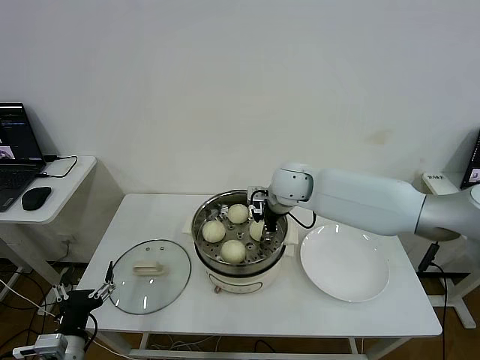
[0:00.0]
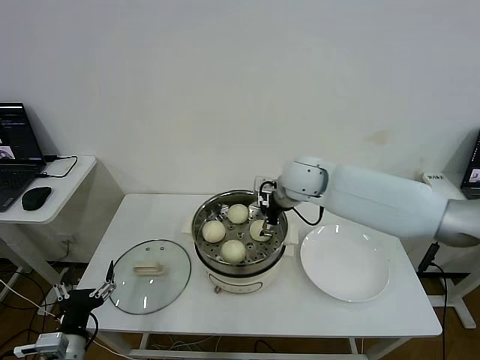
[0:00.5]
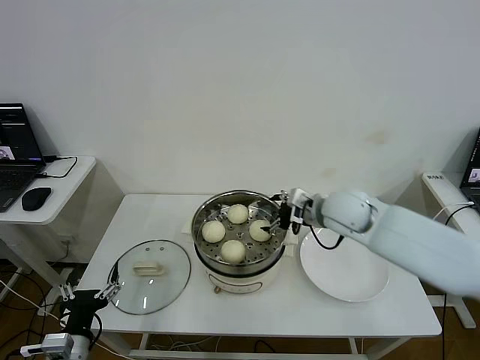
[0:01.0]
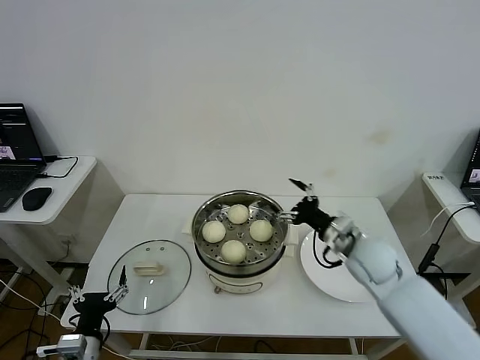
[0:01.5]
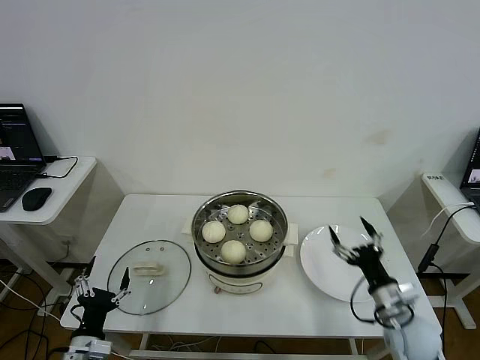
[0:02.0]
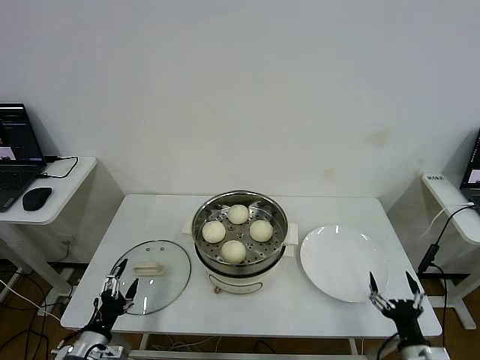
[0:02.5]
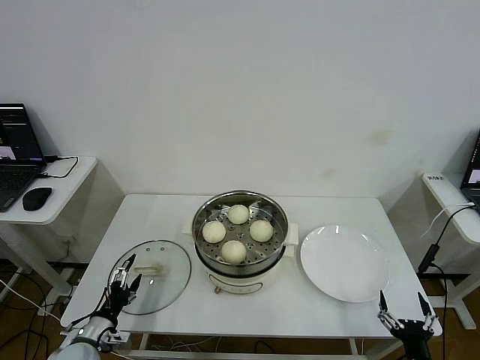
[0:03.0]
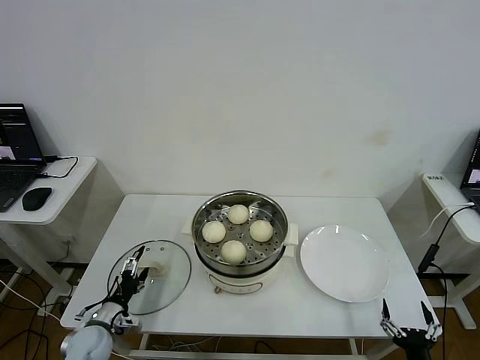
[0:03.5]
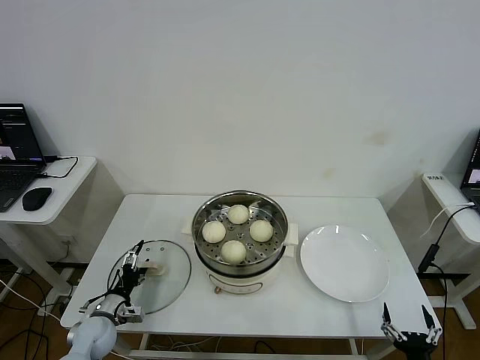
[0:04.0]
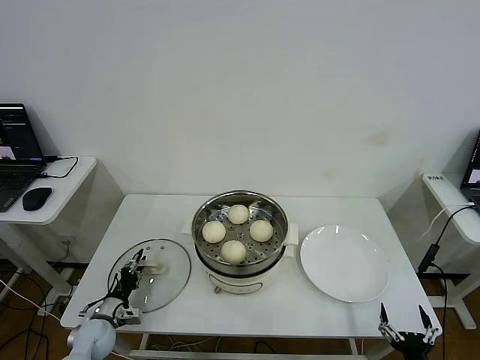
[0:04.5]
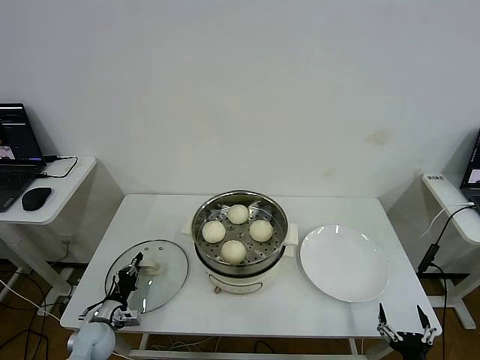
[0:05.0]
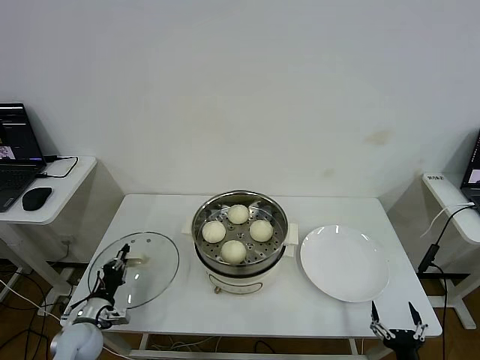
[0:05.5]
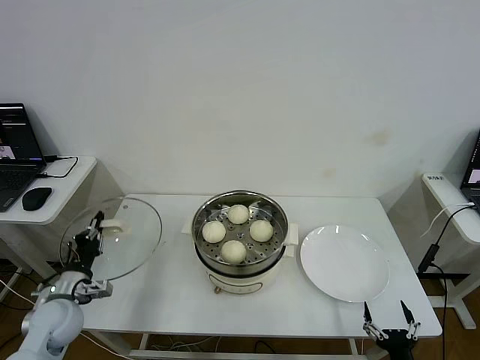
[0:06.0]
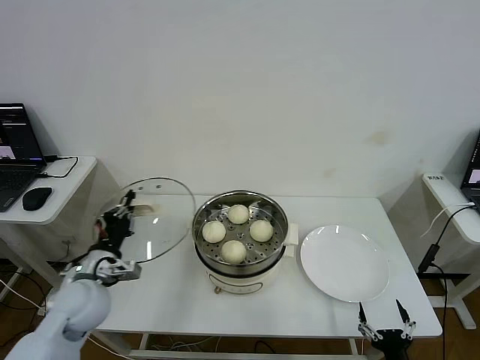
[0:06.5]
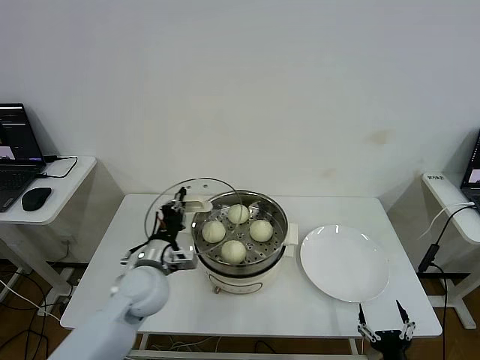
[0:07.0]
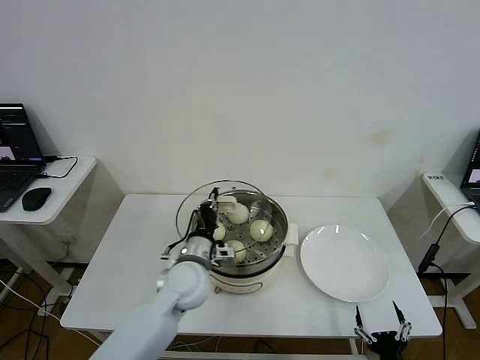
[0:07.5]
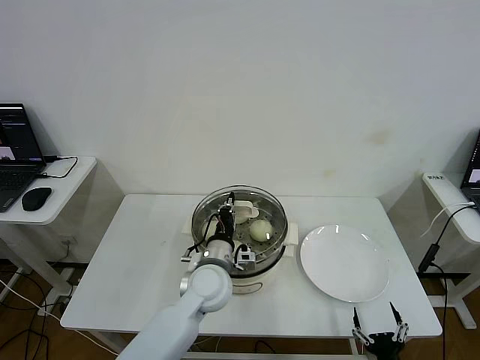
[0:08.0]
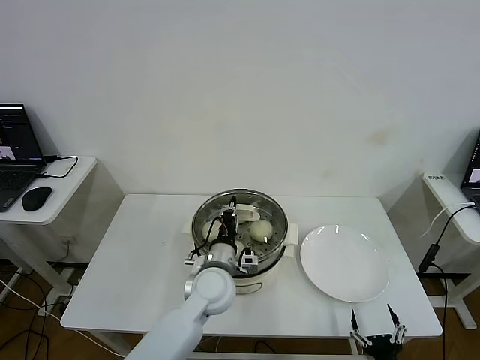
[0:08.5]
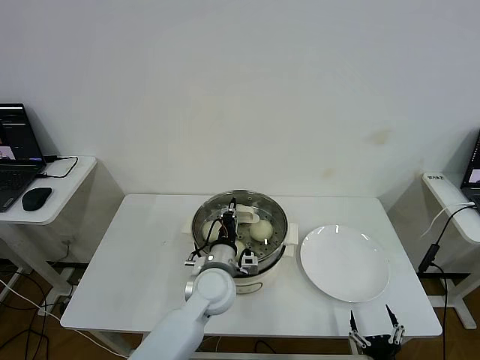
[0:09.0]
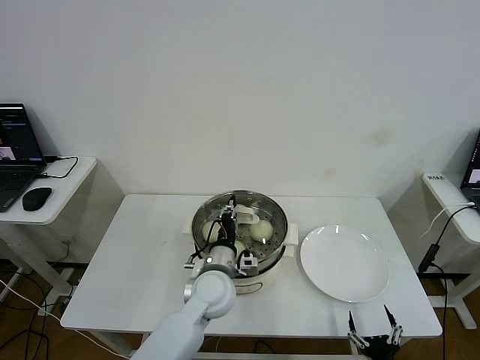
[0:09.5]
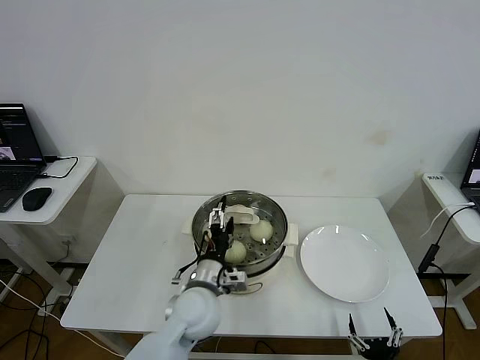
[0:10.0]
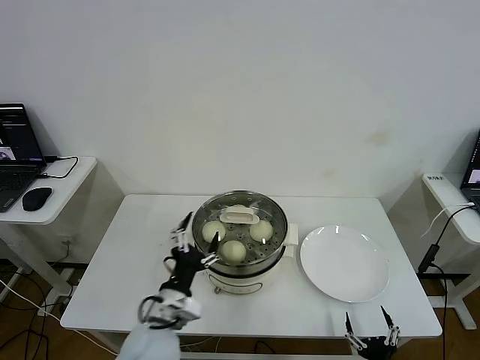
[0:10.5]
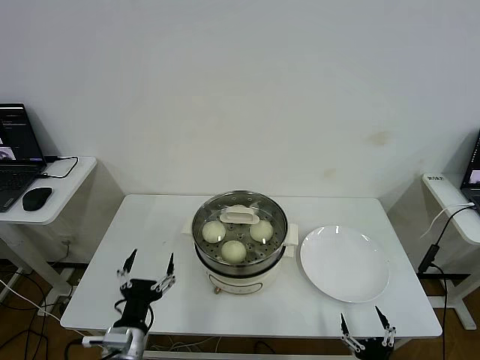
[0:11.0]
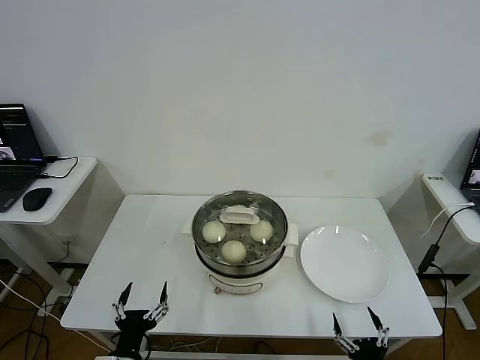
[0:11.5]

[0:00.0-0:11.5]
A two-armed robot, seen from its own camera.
Step, 0:00.5 to 0:04.5: Grasp the pot lid with left gripper.
Step, 0:05.0 to 0:09.5: Place the pot lid on the steamer with left gripper.
0:00.0 to 0:02.0: The right gripper moves backward, to the right and downward, approximately 40 cm, and opens up.
0:02.0 to 0:04.0: The left gripper shifts about 15 cm forward and downward. Meanwhile the right gripper goes approximately 20 cm backward and downward.
0:04.0 to 0:06.0: The left gripper is displaced upward by approximately 10 cm, and closes.
0:06.0 to 0:07.5: The left gripper travels to the right by approximately 25 cm.
0:07.5 to 0:09.5: The left gripper shifts roughly 5 cm to the right.
0:09.5 to 0:11.5: The left gripper travels backward and to the left by some 30 cm, and opens up.

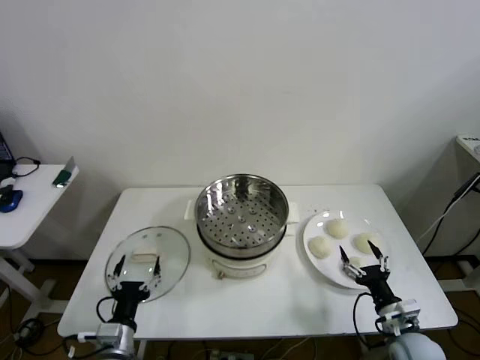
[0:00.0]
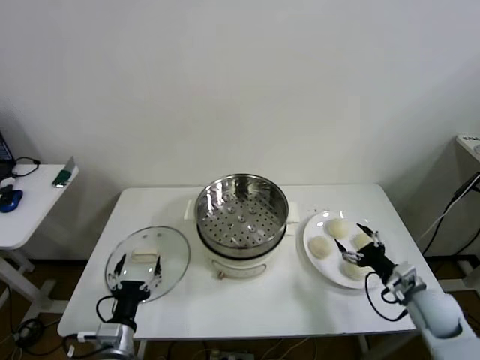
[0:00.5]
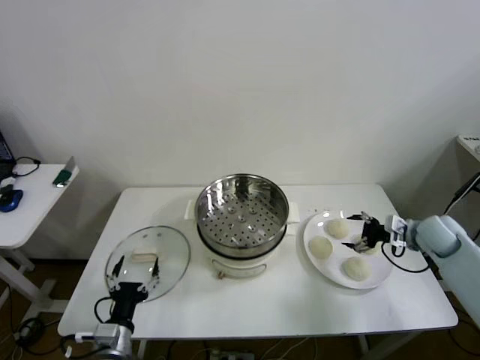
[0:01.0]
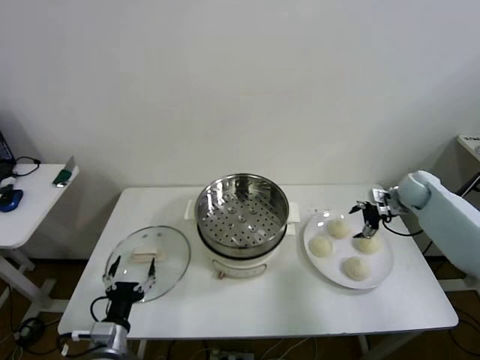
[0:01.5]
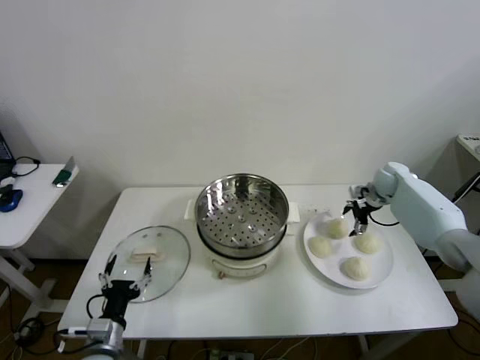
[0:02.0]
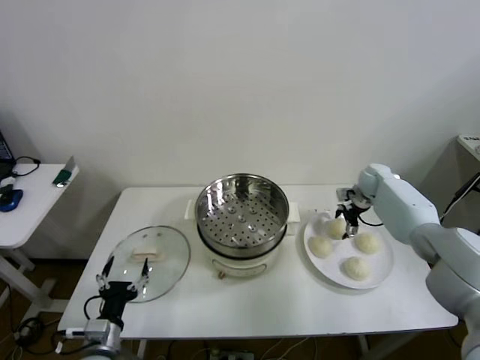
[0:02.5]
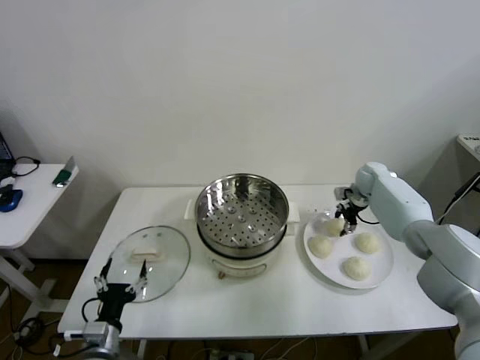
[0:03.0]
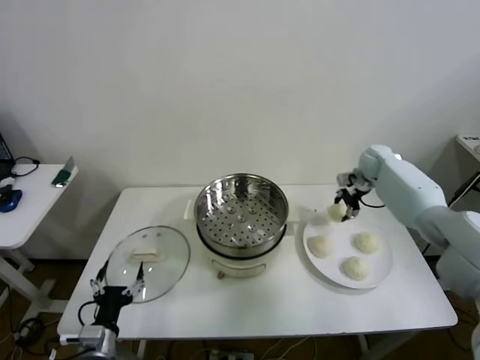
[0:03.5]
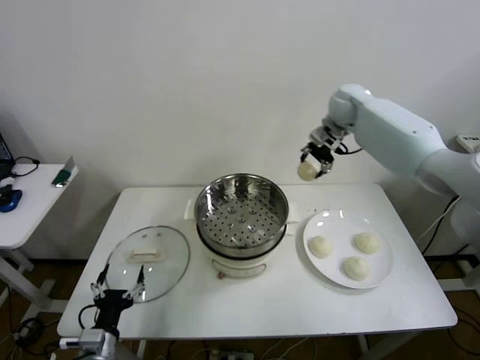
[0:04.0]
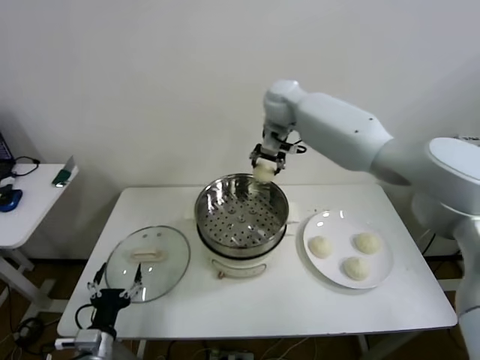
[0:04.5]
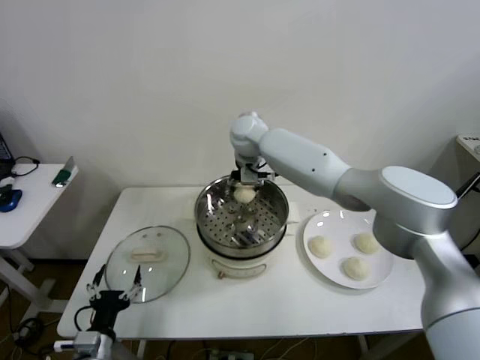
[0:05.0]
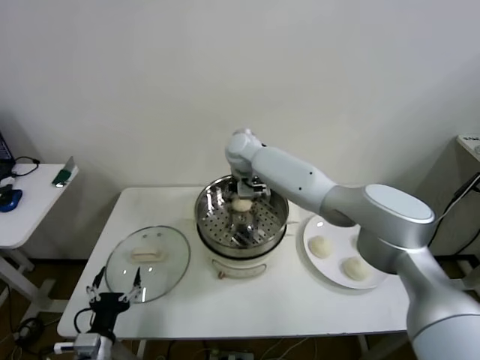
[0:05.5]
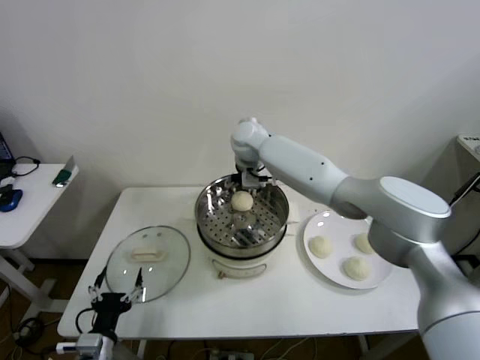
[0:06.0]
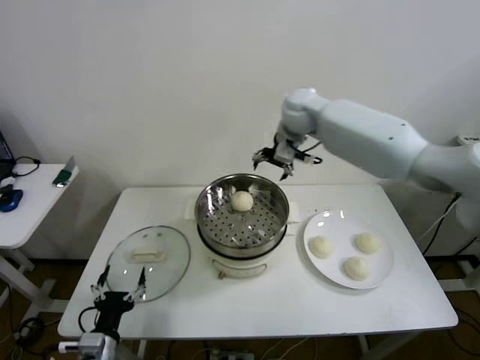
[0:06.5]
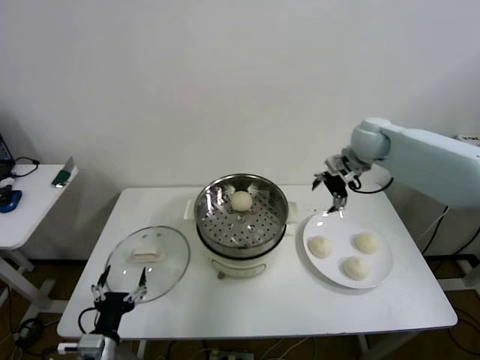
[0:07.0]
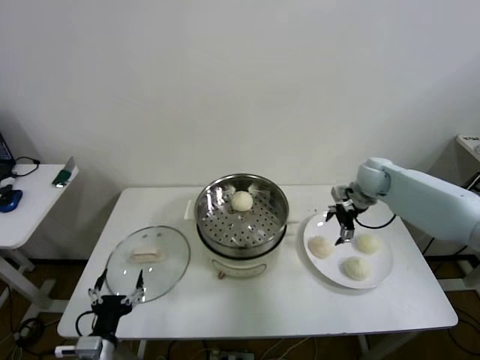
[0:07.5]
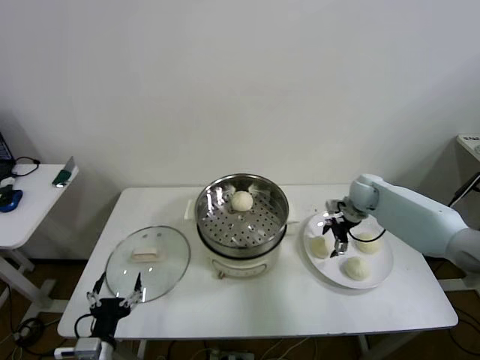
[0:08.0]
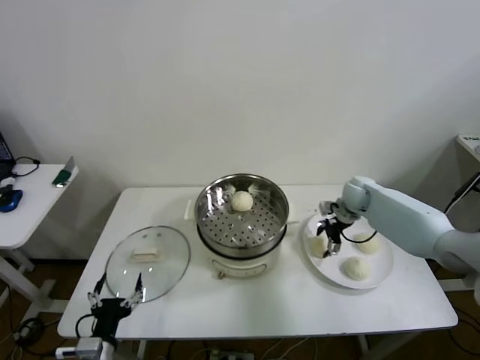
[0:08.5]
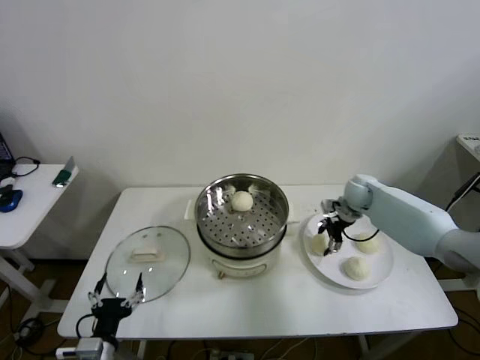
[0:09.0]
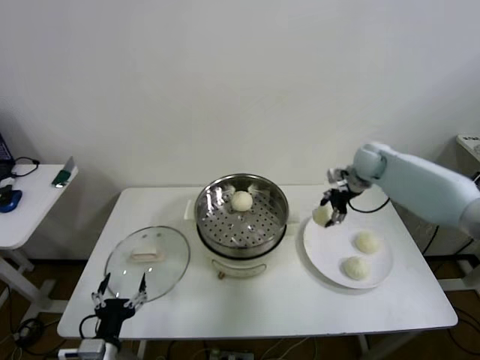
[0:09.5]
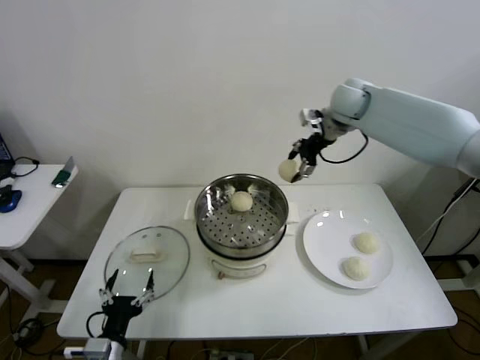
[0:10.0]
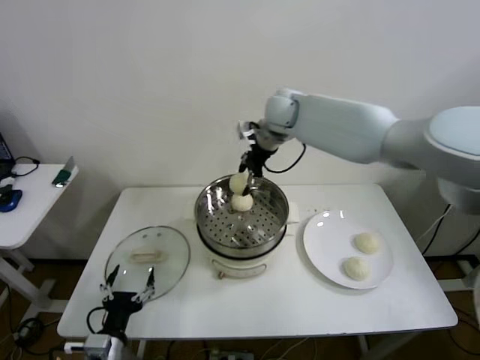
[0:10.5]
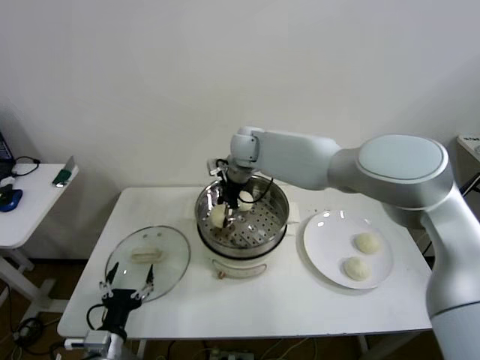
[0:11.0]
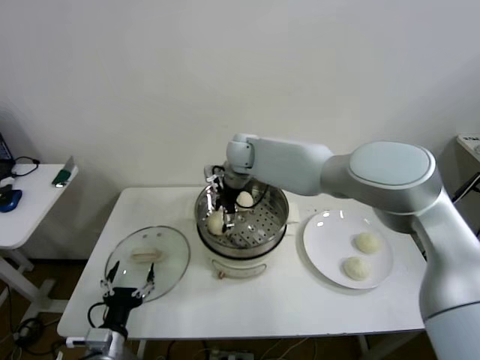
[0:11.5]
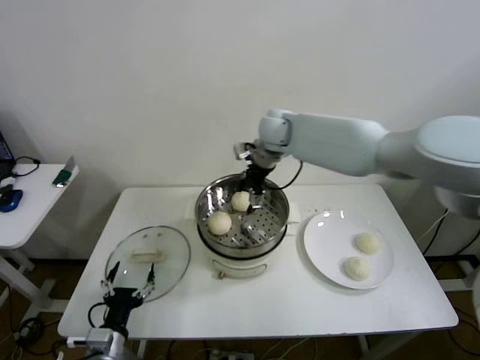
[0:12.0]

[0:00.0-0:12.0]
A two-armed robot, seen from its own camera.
Step, 0:00.0 to 0:03.0: Grasp the baozi in the plate with right gripper.
Step, 0:03.5 to 0:06.0: Place the baozi on the steamer with right gripper.
Step, 0:06.5 to 0:08.0: Grasp the baozi in the plate with right gripper.
Step, 0:09.0 to 0:11.5: Place the baozi on the steamer with right gripper.
0:02.0 to 0:04.0: The right gripper travels upward and to the left by roughly 25 cm, and closes its fingers.
0:04.0 to 0:06.0: The right gripper moves to the left, about 25 cm, and opens.
0:06.0 to 0:08.0: The right gripper goes some 35 cm to the right and downward.
0:08.0 to 0:10.0: The right gripper goes about 25 cm upward, and closes.
0:10.0 to 0:12.0: The right gripper heads to the left, covering some 15 cm, and opens up.

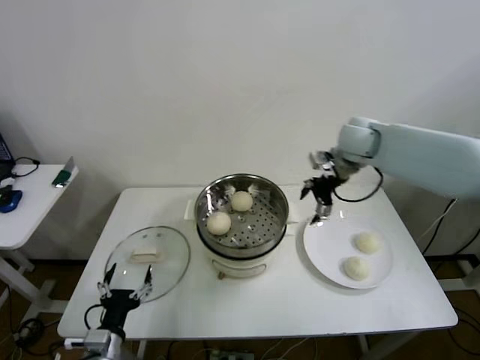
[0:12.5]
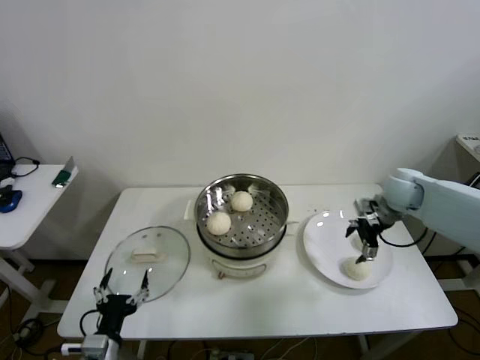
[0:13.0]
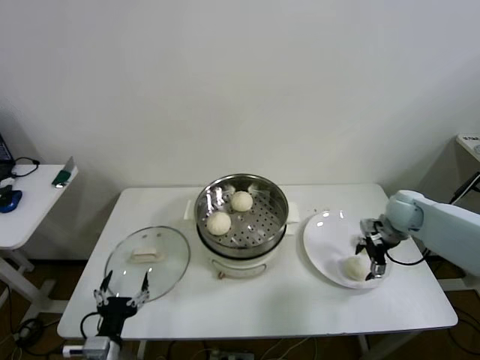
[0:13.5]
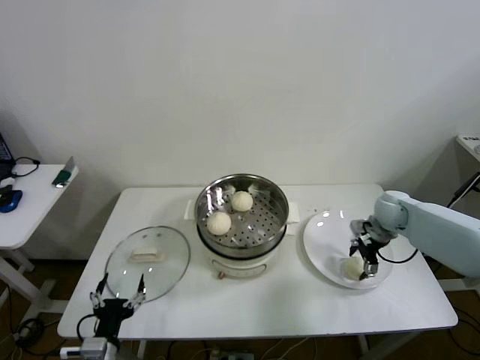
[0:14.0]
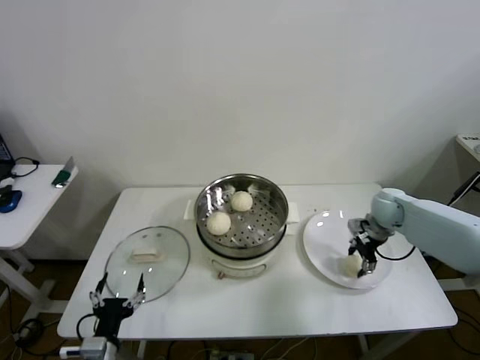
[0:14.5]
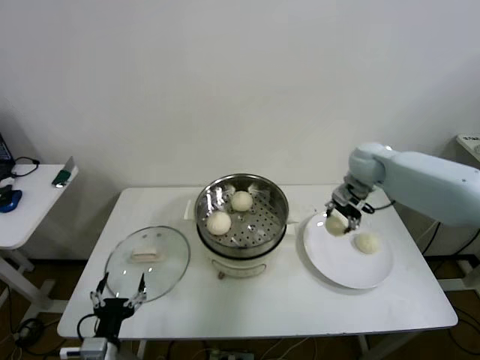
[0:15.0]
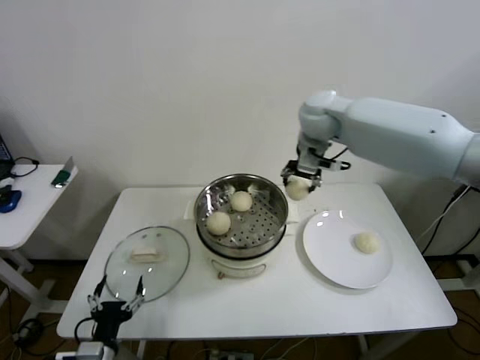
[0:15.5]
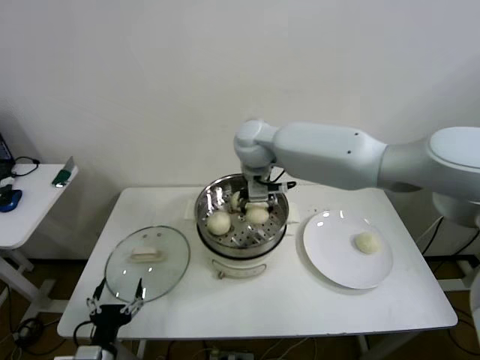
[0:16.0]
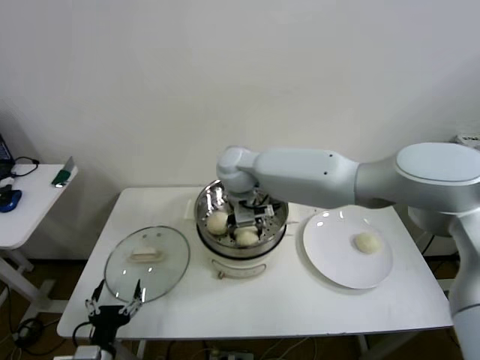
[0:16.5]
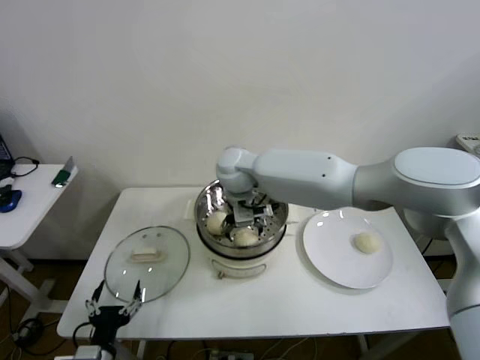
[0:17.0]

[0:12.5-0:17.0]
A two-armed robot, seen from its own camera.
Step, 0:12.5 to 0:14.0: Grasp the baozi in the plate with right gripper.
0:12.5 to 0:14.5: The right gripper heads downward and to the right, covering roughly 25 cm, and closes its fingers.
0:14.5 to 0:17.0: The right gripper is displaced to the left by some 40 cm, and opens.
